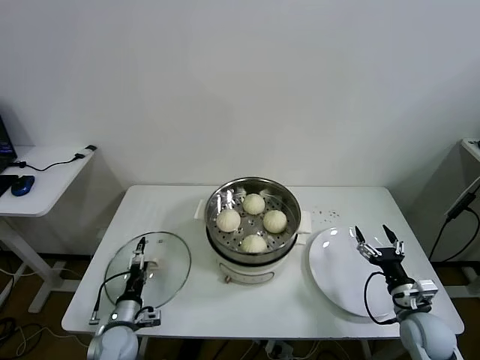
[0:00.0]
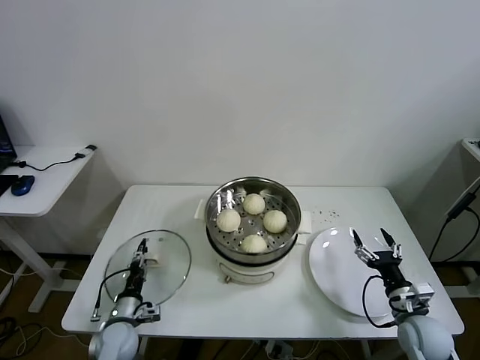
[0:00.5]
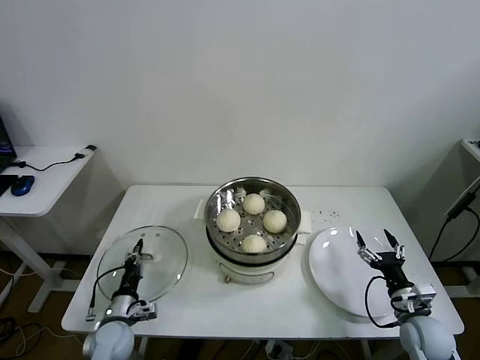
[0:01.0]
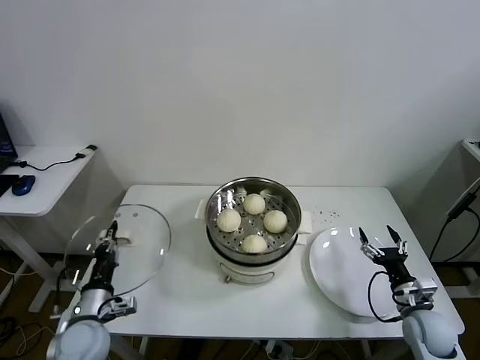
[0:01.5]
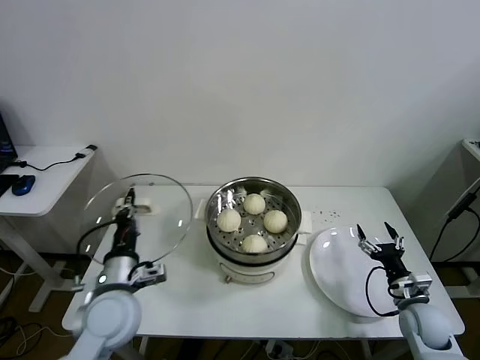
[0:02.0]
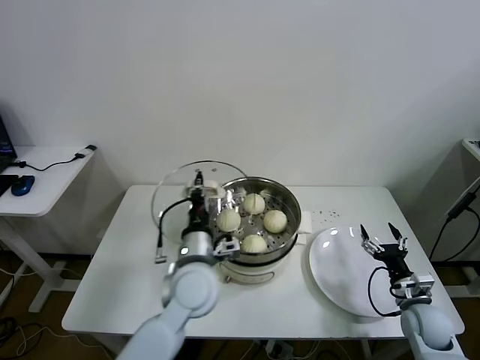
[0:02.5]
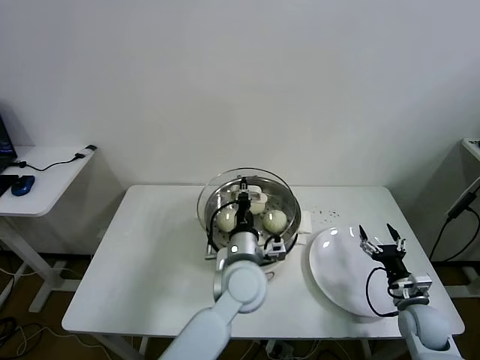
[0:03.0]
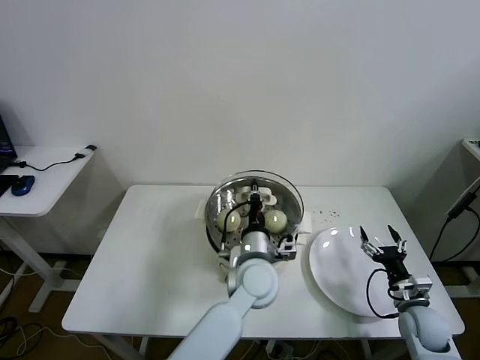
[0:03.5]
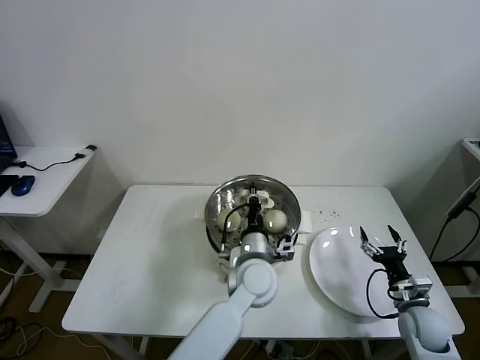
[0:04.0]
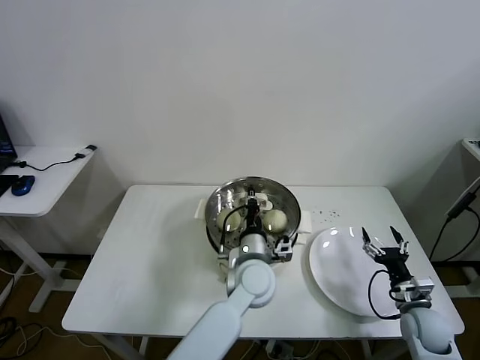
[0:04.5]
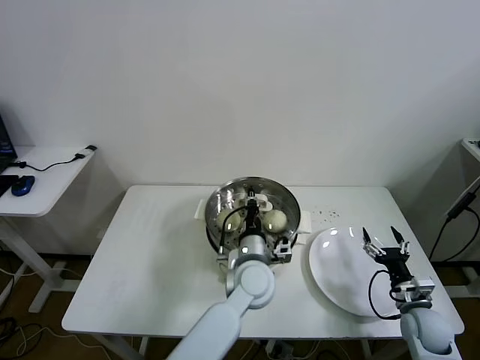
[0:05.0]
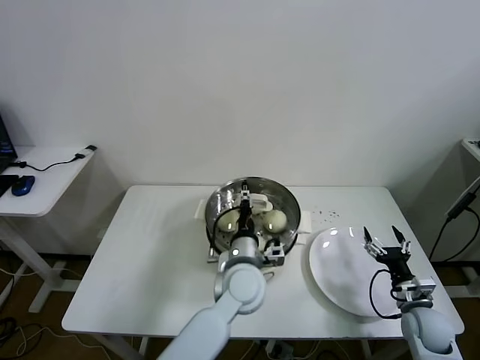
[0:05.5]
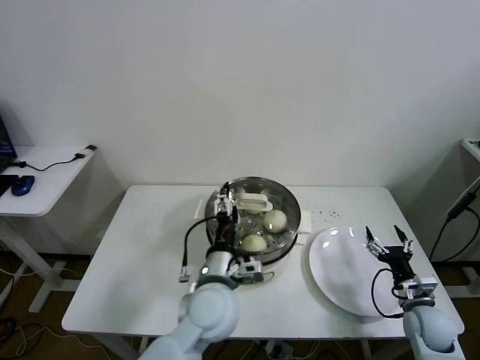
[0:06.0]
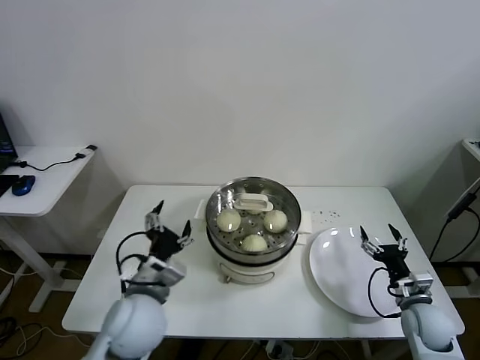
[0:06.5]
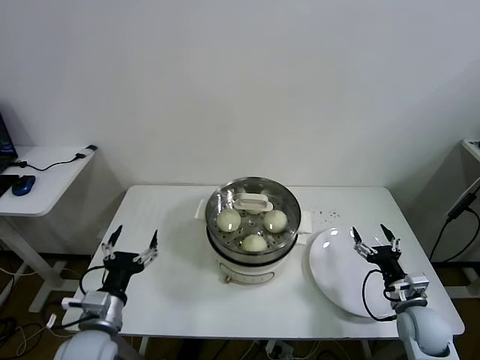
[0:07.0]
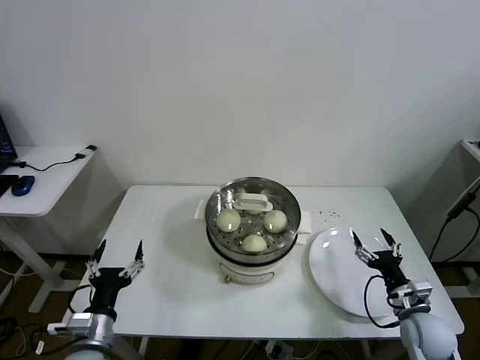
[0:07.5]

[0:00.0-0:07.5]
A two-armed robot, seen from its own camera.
Task of the whole recording: take steamed baozi put them in steamer.
Step, 0:01.0 to 0:05.5: Place the pot lid on the steamer with left gripper.
0:00.0 to 0:02.0: The left gripper moves upward, roughly 20 cm, and closes up.
0:02.0 to 0:04.0: The left gripper goes some 25 cm to the right.
0:04.0 to 0:05.5: The left gripper opens.
0:05.5 to 0:07.5: The left gripper goes roughly 35 cm to the left and backward, and opens.

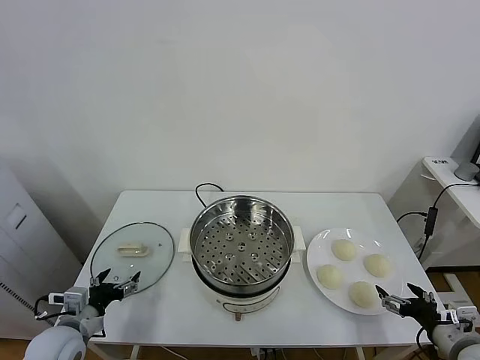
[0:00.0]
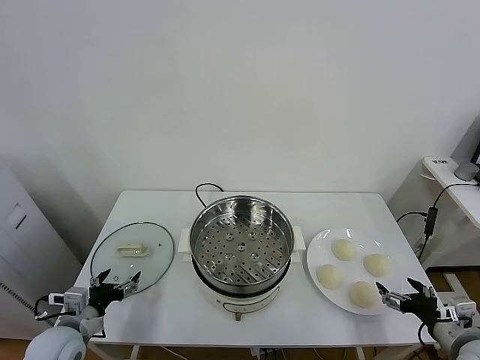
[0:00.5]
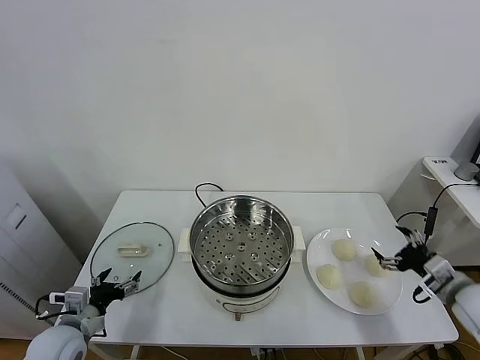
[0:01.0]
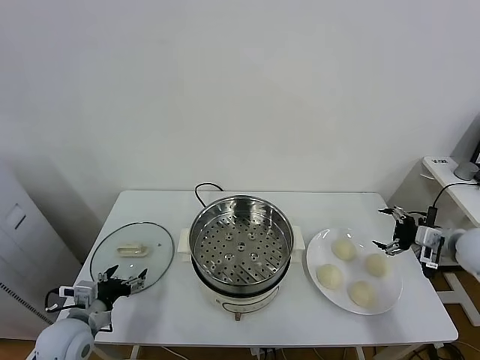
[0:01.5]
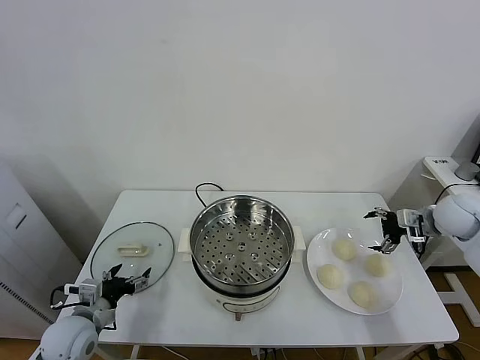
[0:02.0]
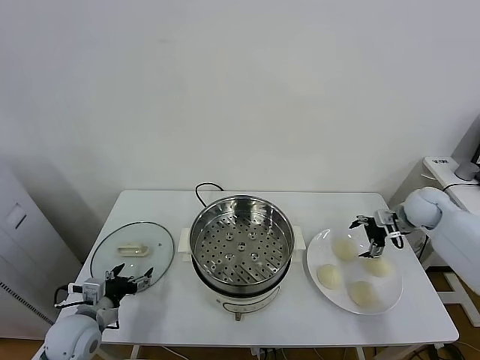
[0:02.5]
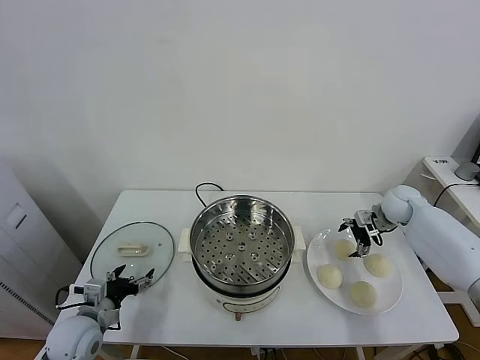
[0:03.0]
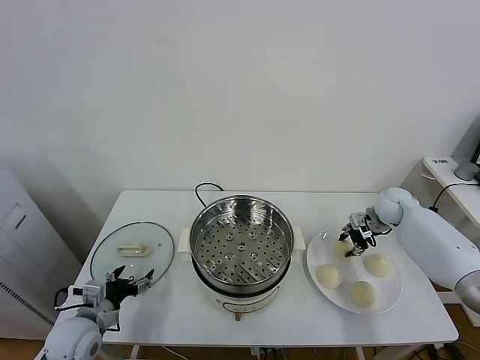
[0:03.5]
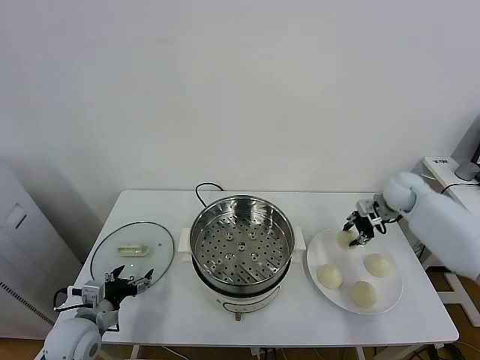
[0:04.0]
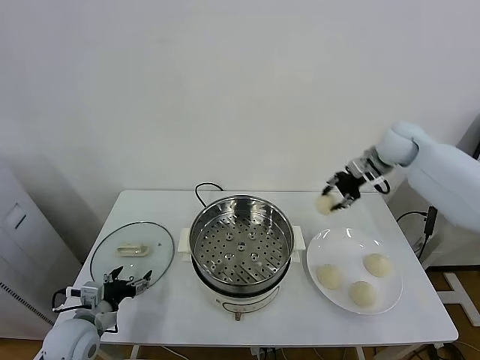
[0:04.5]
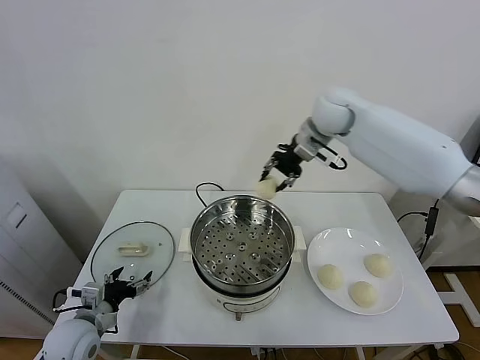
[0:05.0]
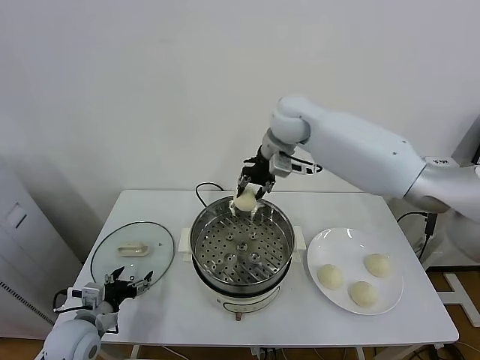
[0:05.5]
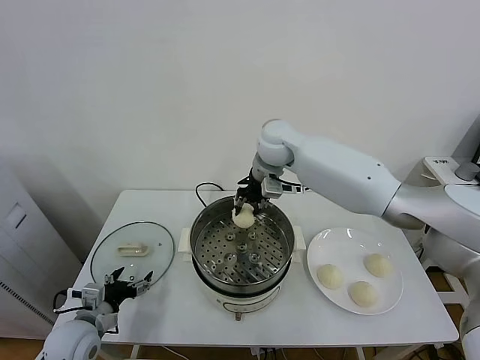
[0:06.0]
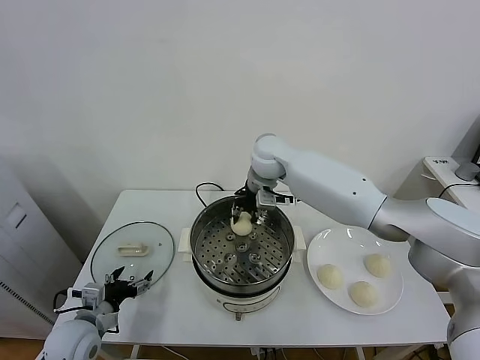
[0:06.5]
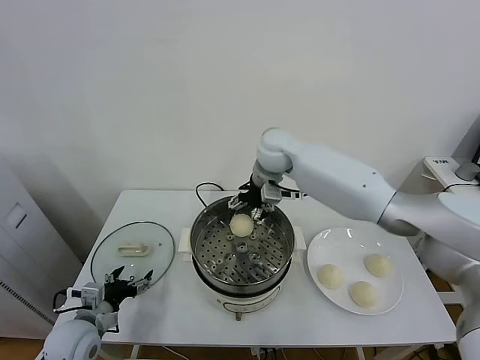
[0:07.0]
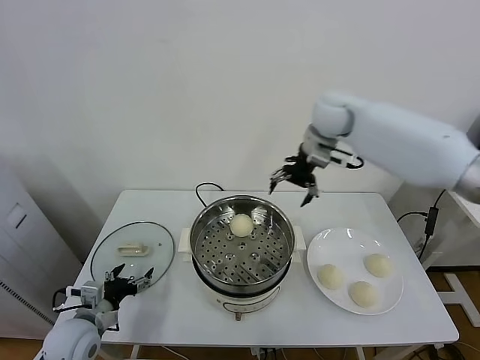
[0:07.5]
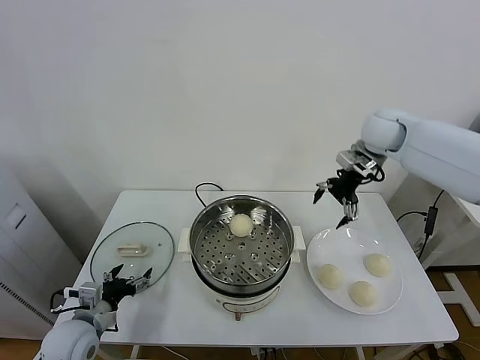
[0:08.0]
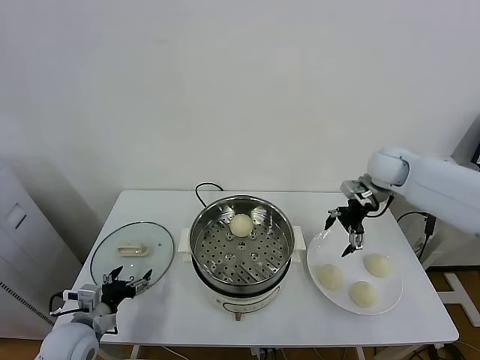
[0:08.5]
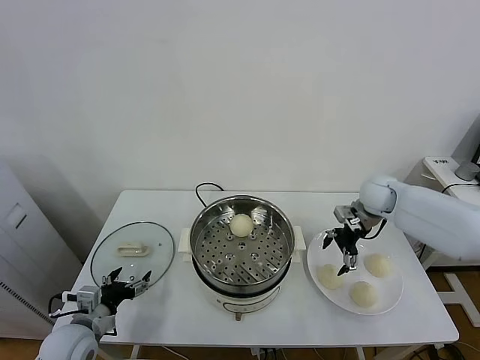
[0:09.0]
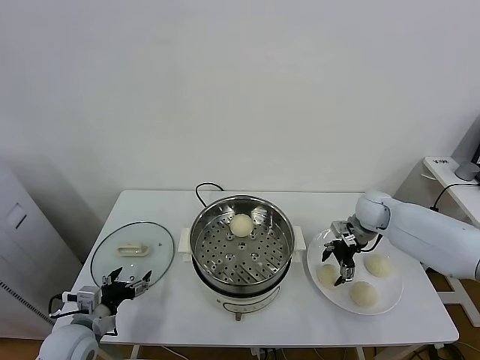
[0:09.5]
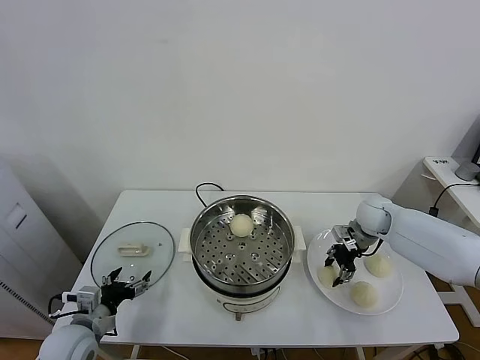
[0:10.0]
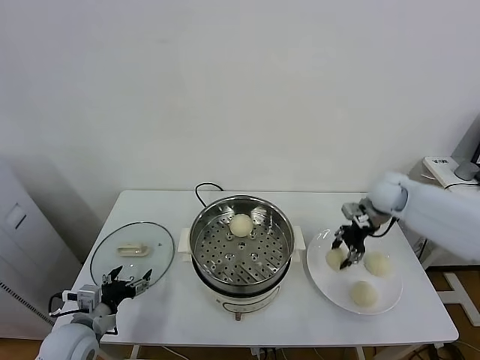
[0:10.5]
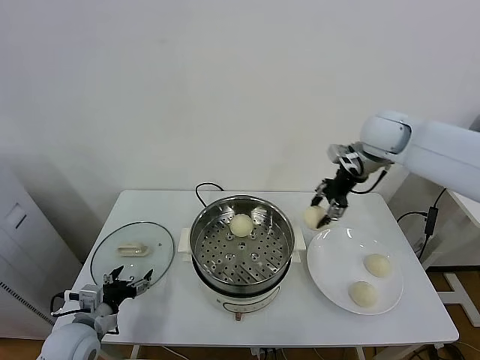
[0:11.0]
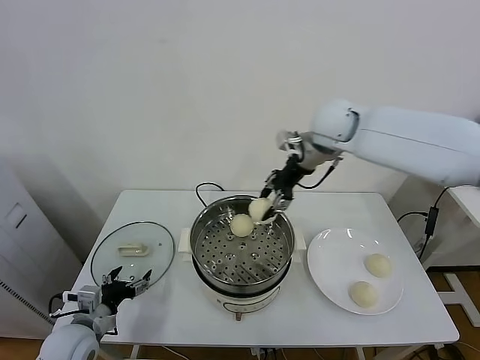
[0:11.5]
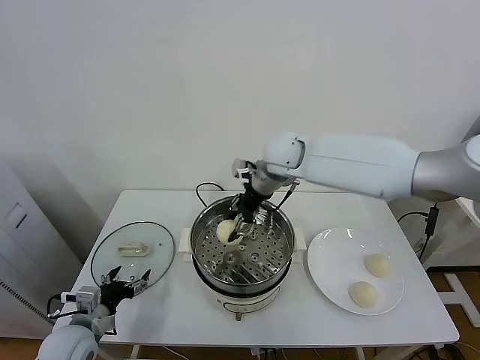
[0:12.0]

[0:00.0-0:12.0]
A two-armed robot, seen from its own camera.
Task of the whole recording: take steamed baozi put them in steamer.
Step, 0:00.0 to 0:03.0: Grasp the baozi in the plate with right gripper.
Step, 0:04.0 to 0:07.0: Place the baozi on the steamer with right gripper.
Step, 0:07.5 to 0:09.5: Grasp the baozi in the plate with right gripper.
0:02.0 to 0:04.0: The right gripper heads forward and to the left, covering roughly 10 cm, and closes its fingers.
0:04.0 to 0:06.0: The right gripper heads to the left, covering approximately 35 cm.
0:06.0 to 0:08.0: The right gripper moves to the right, approximately 25 cm, and opens its fingers.
0:08.0 to 0:10.0: The right gripper moves downward, some 20 cm, and closes its fingers.
0:10.0 to 0:12.0: The right gripper is displaced to the left and upward by some 30 cm.

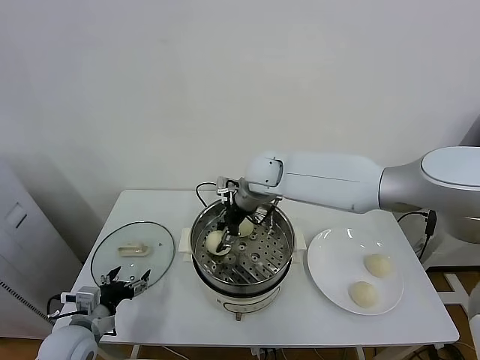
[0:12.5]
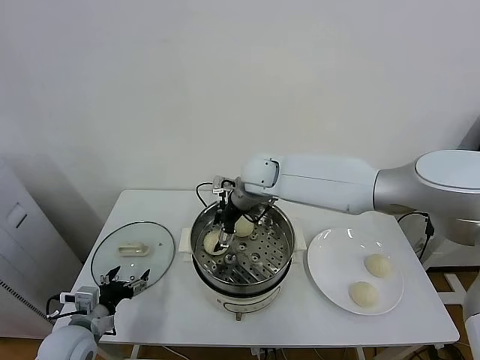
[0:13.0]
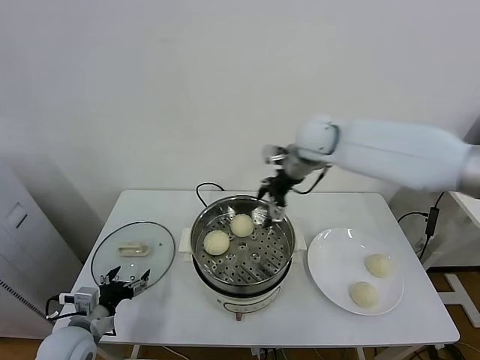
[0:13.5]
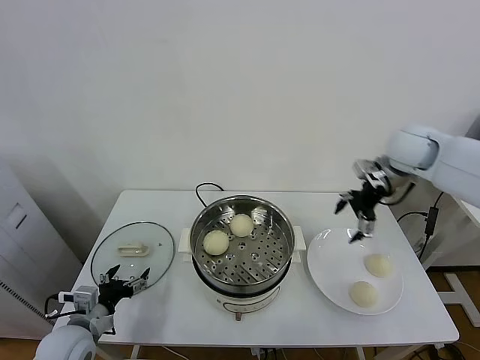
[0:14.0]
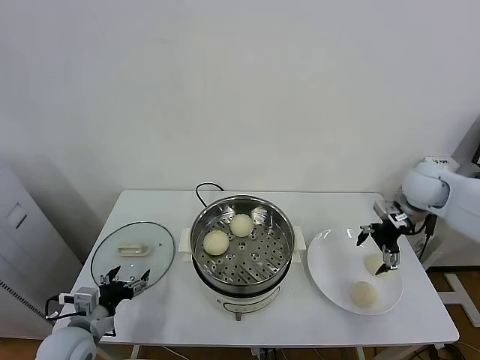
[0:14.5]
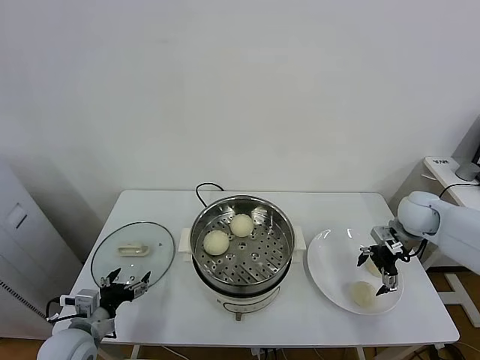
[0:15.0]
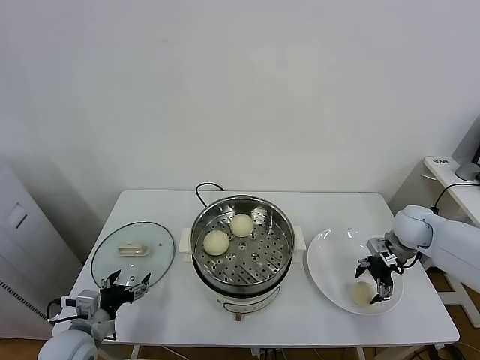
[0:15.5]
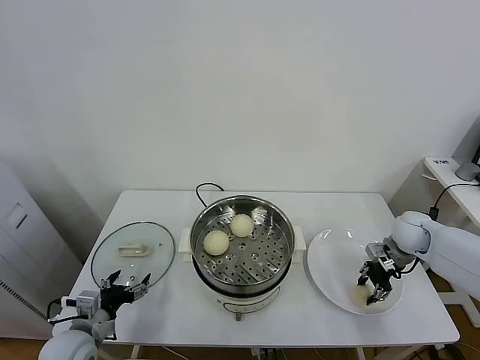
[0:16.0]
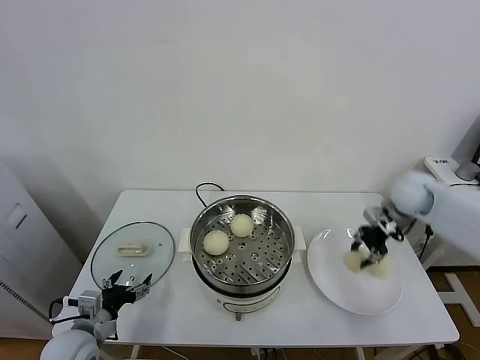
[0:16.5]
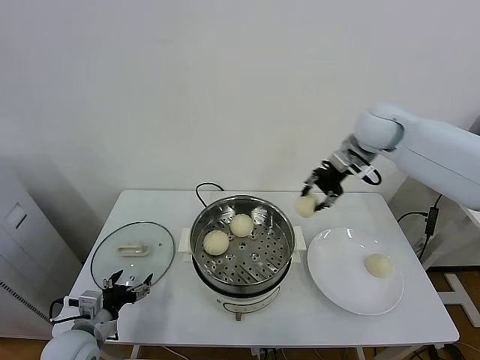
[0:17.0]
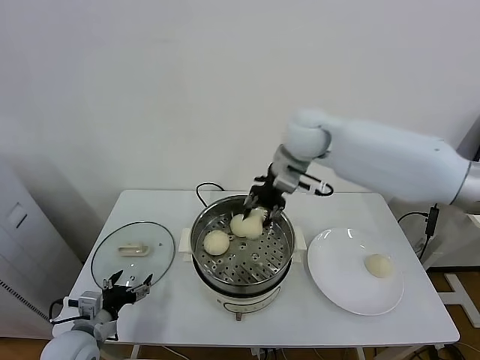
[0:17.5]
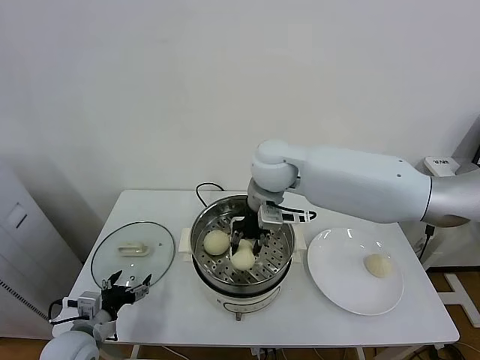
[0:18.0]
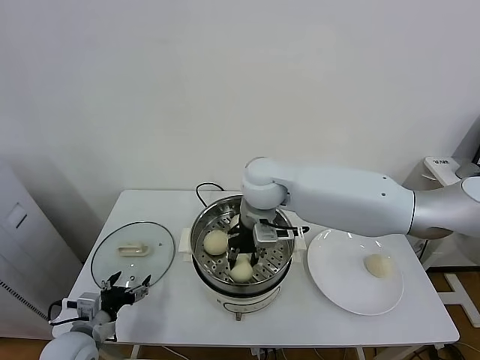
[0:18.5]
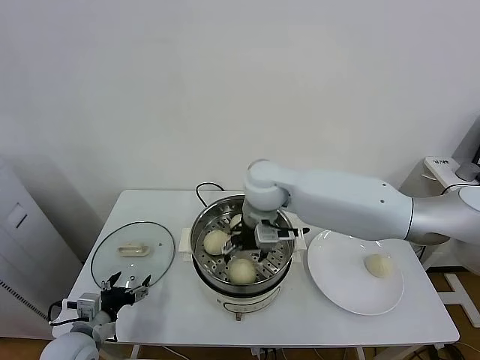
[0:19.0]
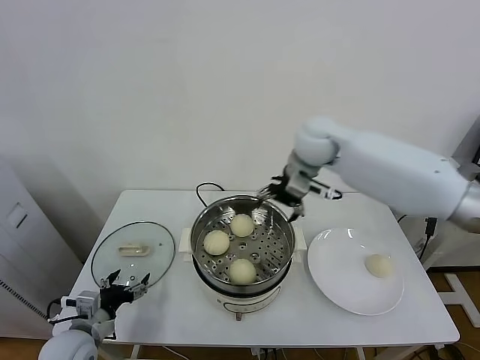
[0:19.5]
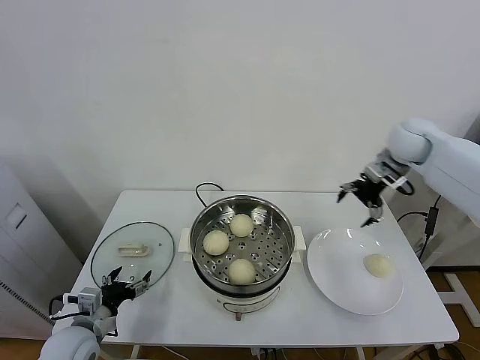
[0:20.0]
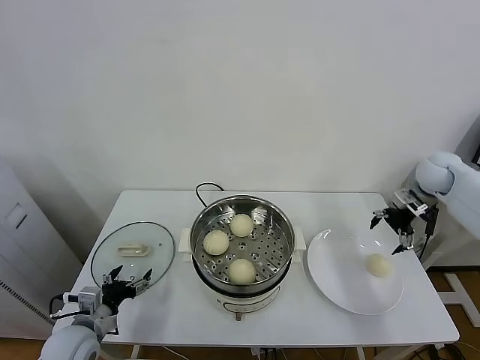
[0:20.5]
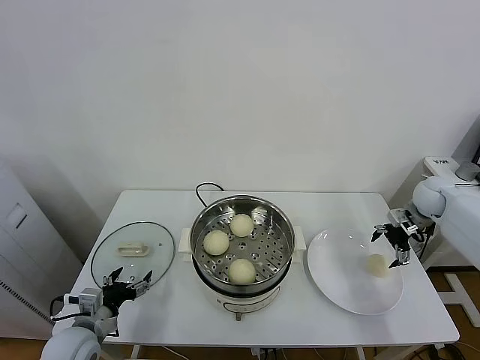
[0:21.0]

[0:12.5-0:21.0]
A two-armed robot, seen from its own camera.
Task of the whole recording: take steamed baozi put them in steamer.
Step, 0:13.5 to 0:16.0: Grasp the baozi in the plate with right gripper.
Step, 0:16.5 to 0:19.0: Place the baozi on the steamer with right gripper.
0:12.5 to 0:14.5: The right gripper heads to the right, covering about 35 cm, and opens its fingers.
0:14.5 to 0:16.5: The right gripper travels downward and back again, approximately 10 cm each way, and closes its fingers.
0:16.5 to 0:19.0: The right gripper heads to the left, covering approximately 35 cm, and opens up.
0:19.0 to 0:21.0: The right gripper is displaced to the right by roughly 40 cm.
